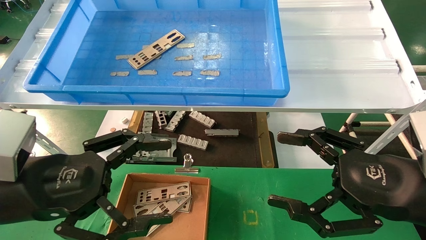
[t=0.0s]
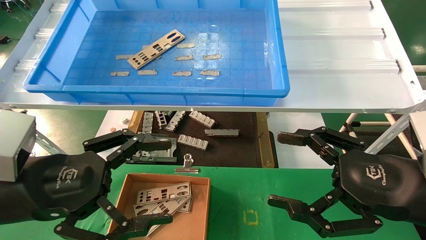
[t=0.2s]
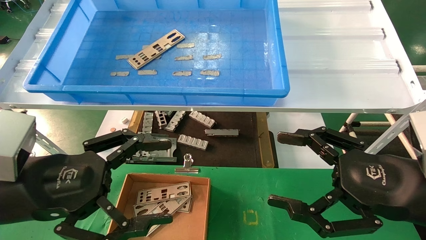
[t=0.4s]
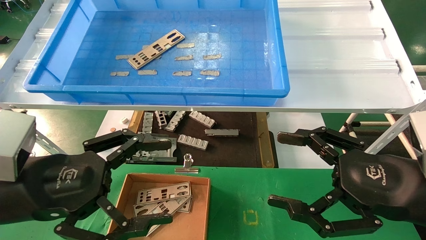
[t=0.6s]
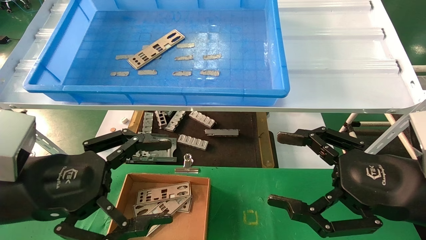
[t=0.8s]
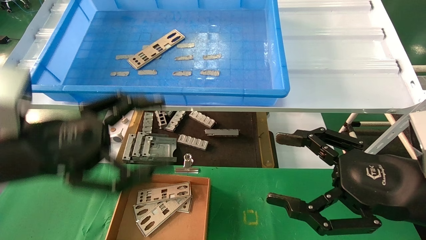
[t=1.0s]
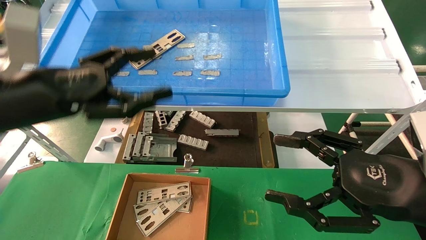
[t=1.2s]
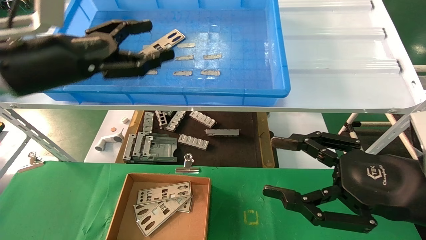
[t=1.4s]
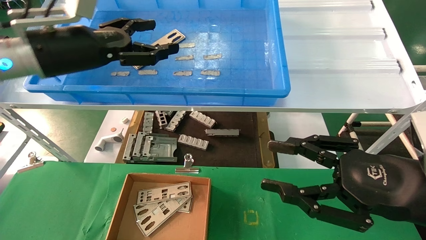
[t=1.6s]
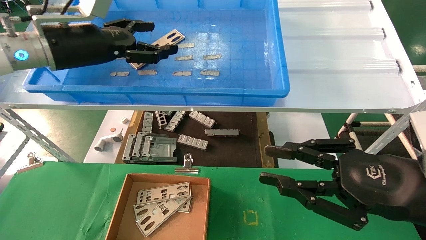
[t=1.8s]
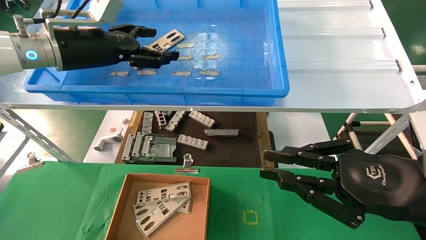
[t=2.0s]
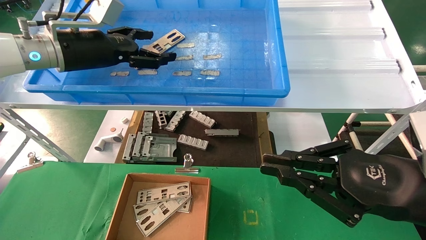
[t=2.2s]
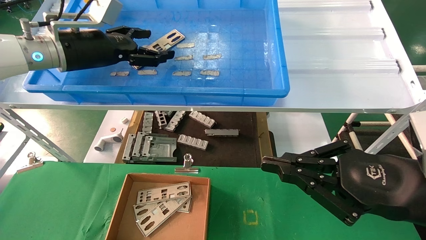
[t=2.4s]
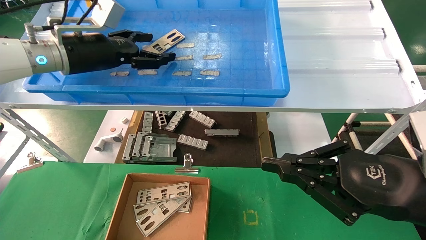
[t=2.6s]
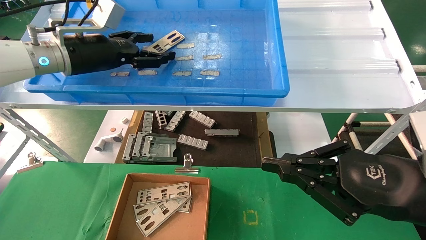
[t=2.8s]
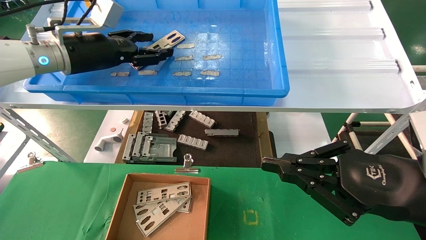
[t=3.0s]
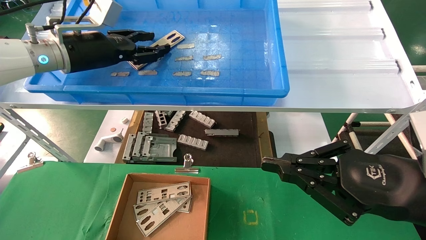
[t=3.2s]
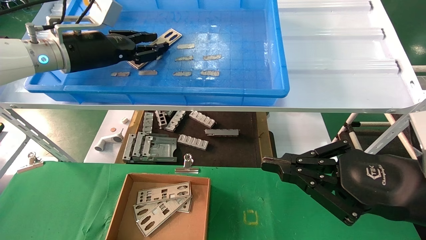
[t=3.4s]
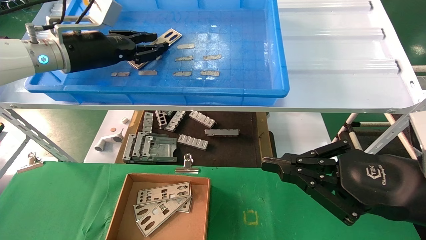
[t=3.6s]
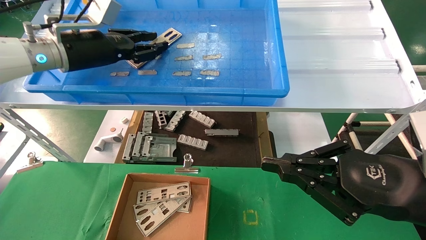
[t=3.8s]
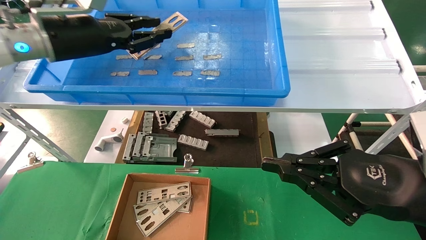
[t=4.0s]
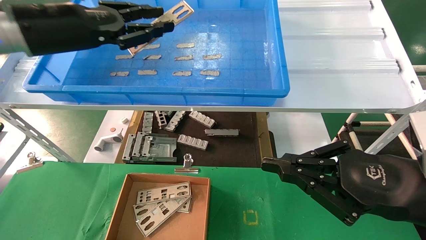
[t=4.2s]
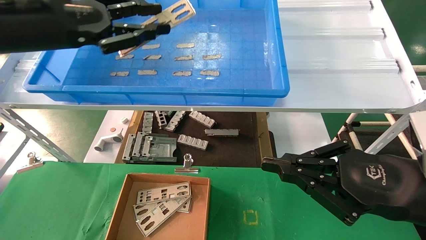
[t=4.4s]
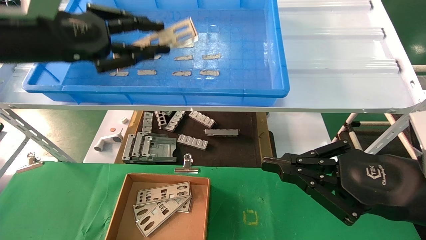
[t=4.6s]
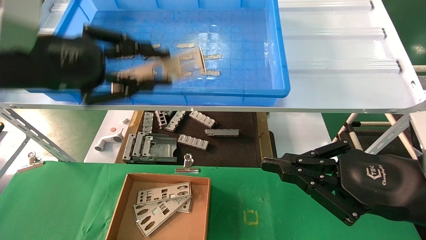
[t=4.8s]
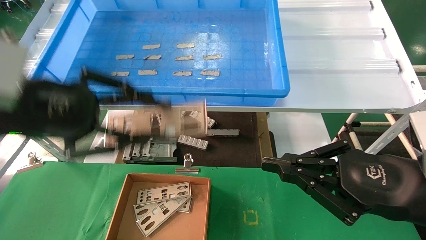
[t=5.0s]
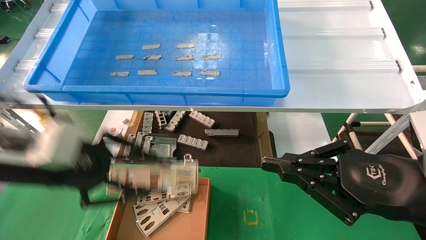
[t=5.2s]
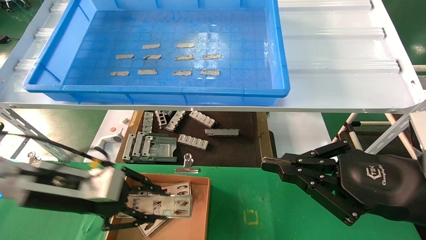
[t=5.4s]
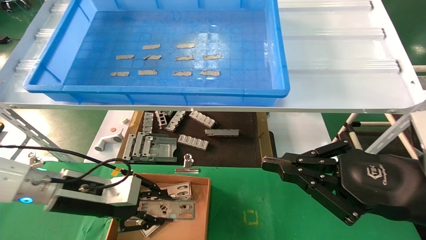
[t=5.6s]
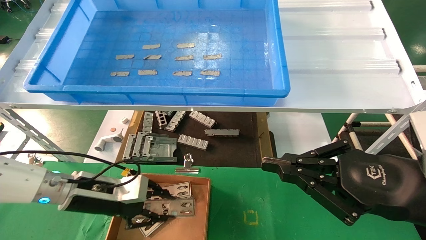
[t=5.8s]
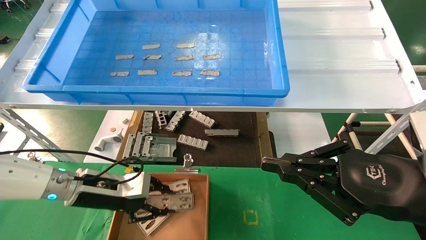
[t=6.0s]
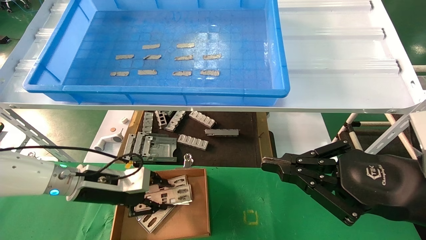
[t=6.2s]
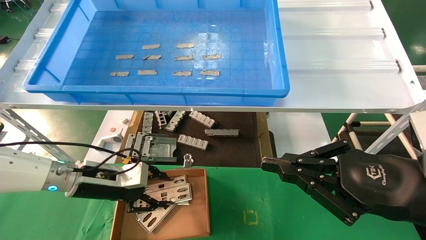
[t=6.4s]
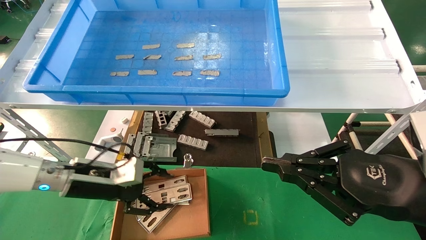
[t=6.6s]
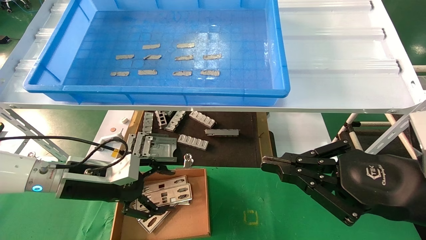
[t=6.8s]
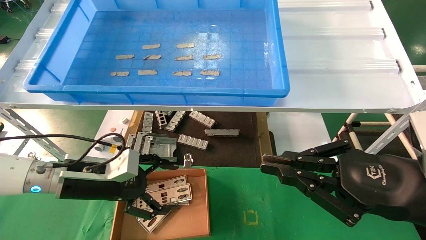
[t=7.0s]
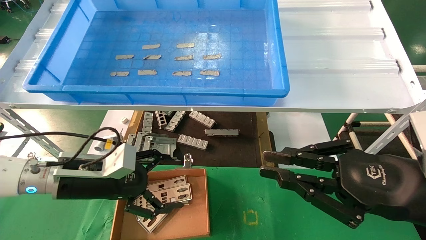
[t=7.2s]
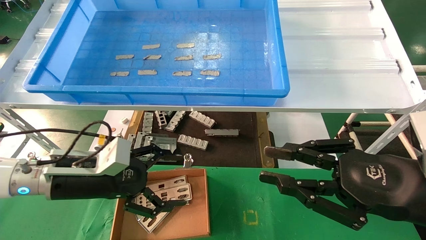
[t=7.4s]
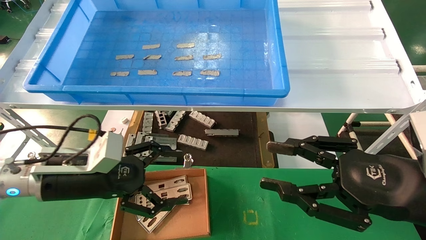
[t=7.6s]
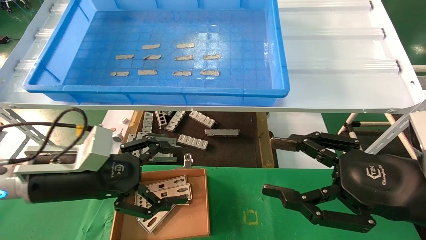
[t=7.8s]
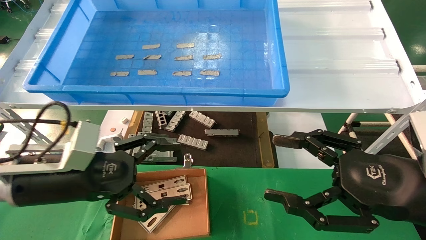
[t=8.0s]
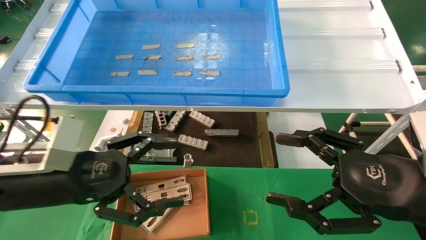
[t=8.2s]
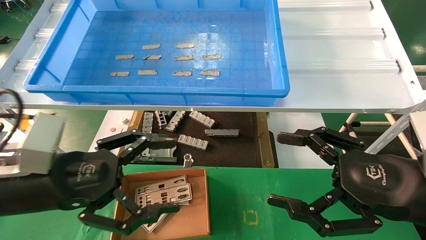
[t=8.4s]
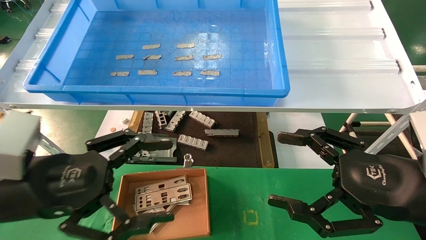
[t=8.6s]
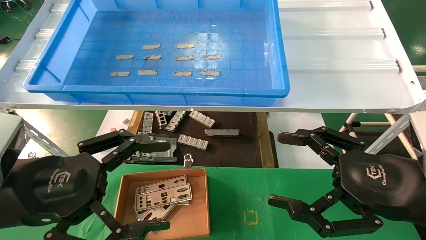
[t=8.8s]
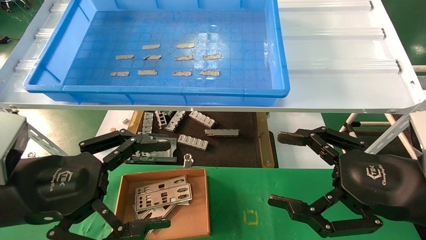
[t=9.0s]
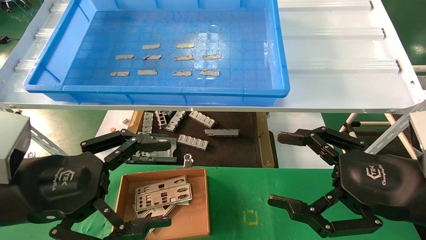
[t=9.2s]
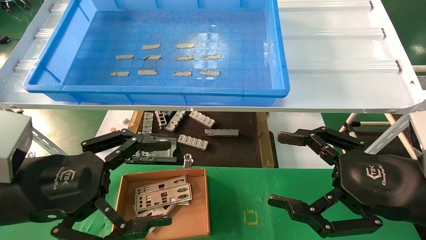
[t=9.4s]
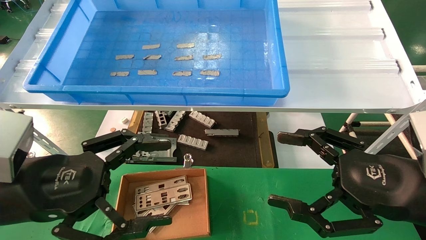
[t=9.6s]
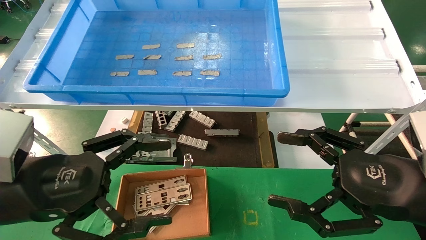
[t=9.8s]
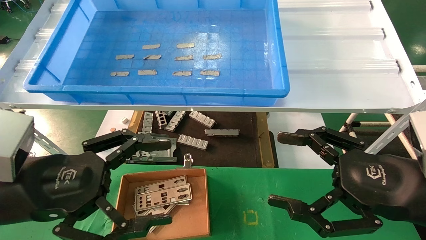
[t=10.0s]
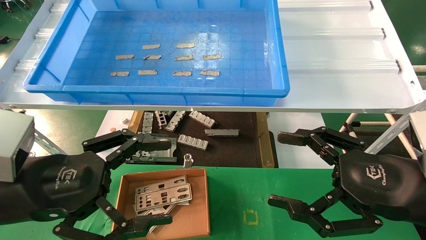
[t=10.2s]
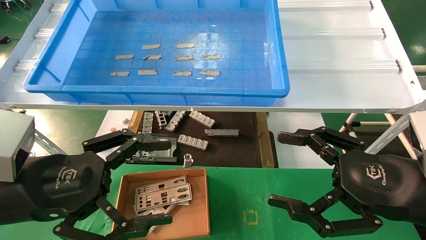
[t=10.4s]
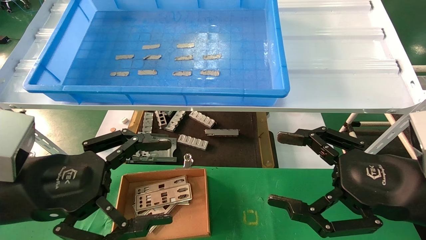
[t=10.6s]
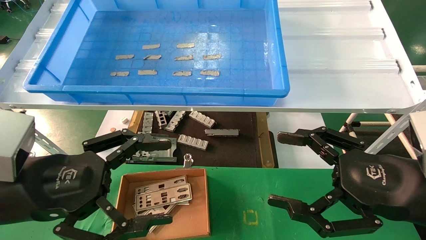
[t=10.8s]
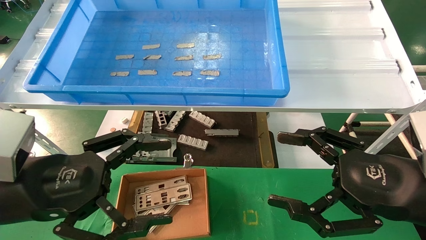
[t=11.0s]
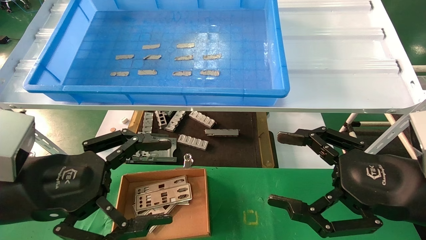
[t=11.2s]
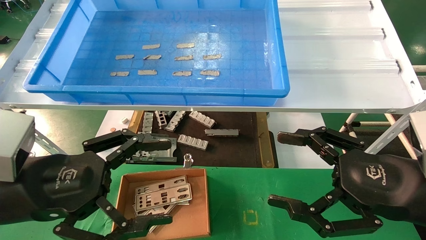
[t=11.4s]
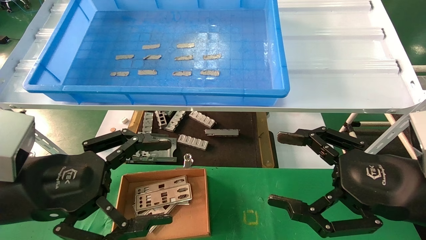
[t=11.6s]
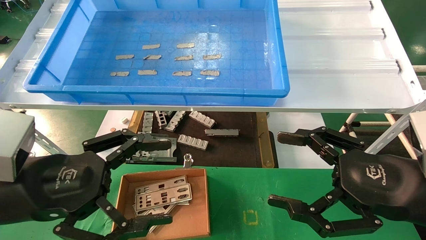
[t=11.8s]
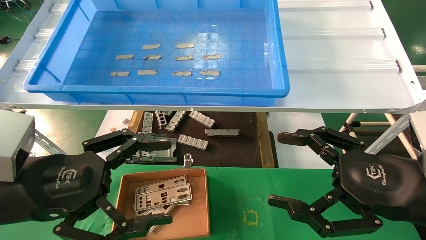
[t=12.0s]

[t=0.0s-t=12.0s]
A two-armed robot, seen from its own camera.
Task of the whole recording: pick up the parts on the tray and put them in the cardboard box.
Step, t=1.2s to t=3.6s: Pick up the IO bracket from the container box.
Step, t=3.8s to t=6.2s: Place the IO bracket into the ingredient slot.
t=0.0s to t=1.6s: The right gripper closes up. Meanwhile the left gripper travels forward and upward by approximately 20 cm.
t=1.6s to t=3.0s: The left gripper goes approximately 5 cm forward; the right gripper closes its fingers.
t=3.0s to t=4.4s: The left gripper goes approximately 10 cm backward, and closes up.
t=4.4s to t=6.0s: The left gripper moves downward, some 30 cm.
t=6.0s to t=7.6s: The left gripper is displaced backward and upward by approximately 10 cm, and opens. Meanwhile the right gripper opens.
t=7.6s to t=9.0s: The left gripper heads backward and upward, covering roughly 10 cm. Meanwhile the right gripper opens up.
t=9.0s to t=12.0s: The two grippers keep their place.

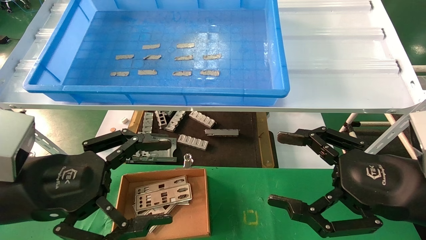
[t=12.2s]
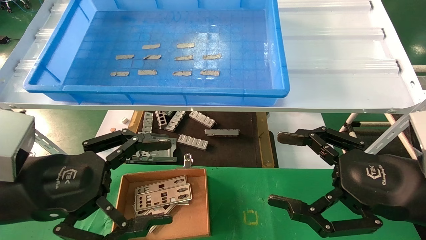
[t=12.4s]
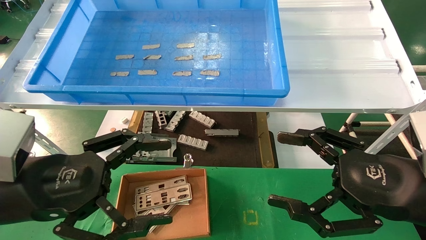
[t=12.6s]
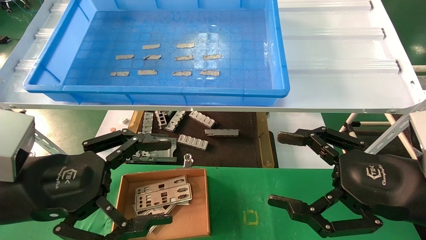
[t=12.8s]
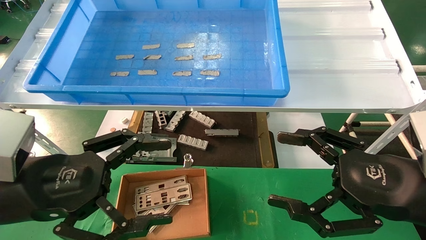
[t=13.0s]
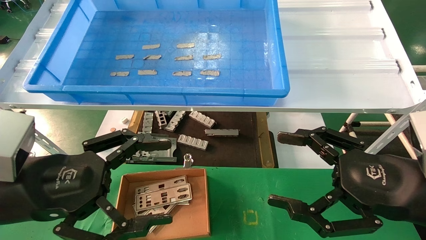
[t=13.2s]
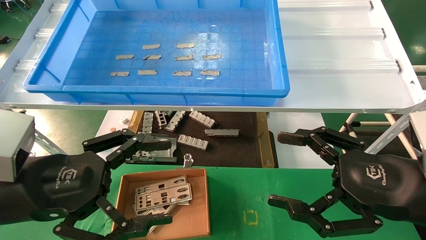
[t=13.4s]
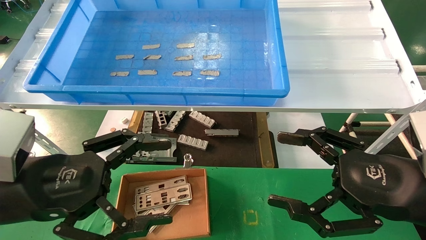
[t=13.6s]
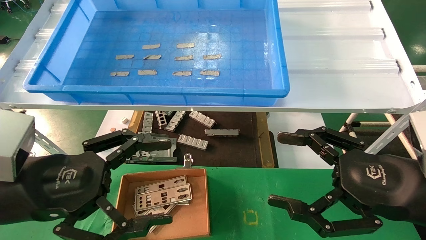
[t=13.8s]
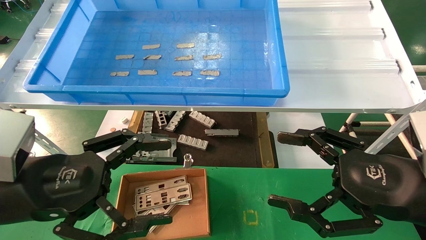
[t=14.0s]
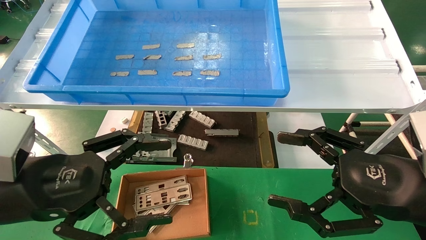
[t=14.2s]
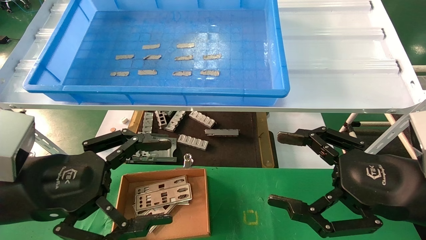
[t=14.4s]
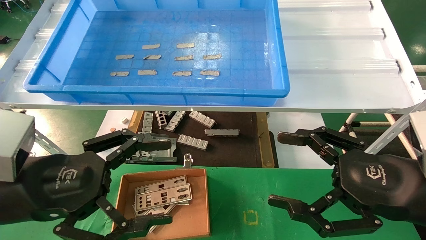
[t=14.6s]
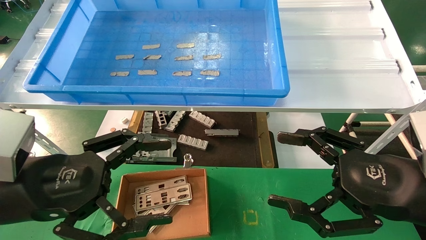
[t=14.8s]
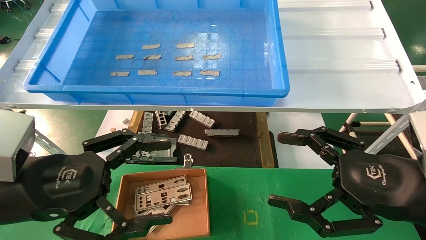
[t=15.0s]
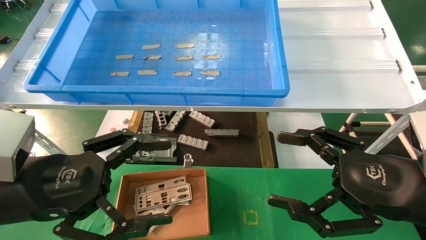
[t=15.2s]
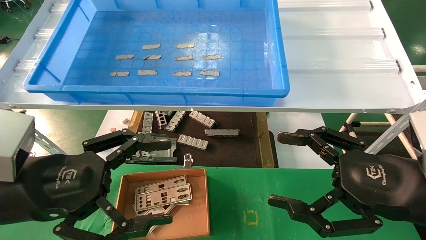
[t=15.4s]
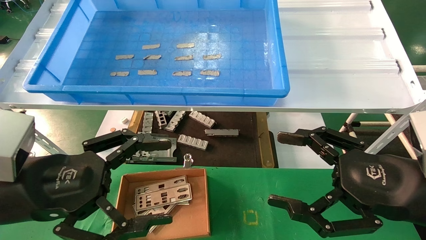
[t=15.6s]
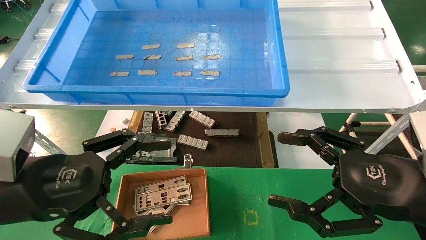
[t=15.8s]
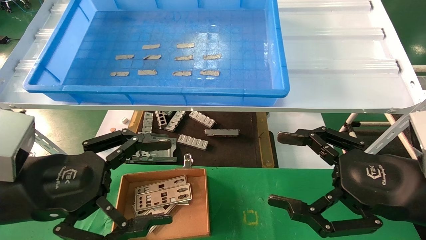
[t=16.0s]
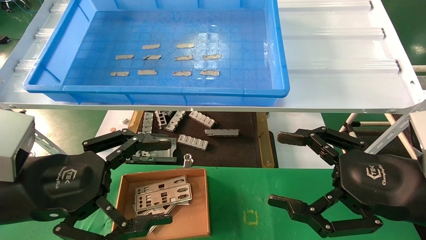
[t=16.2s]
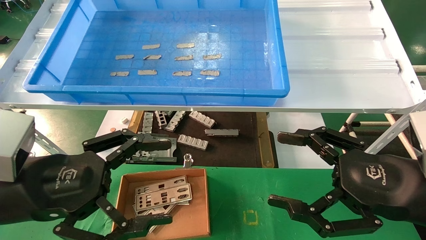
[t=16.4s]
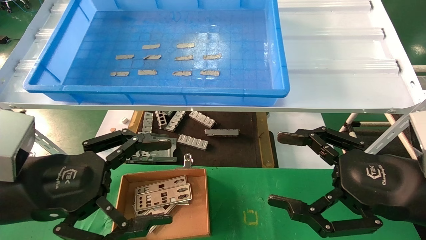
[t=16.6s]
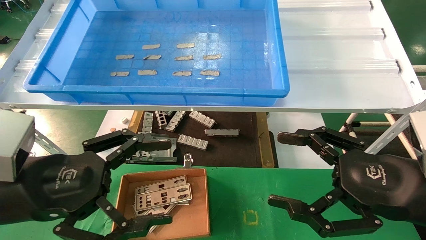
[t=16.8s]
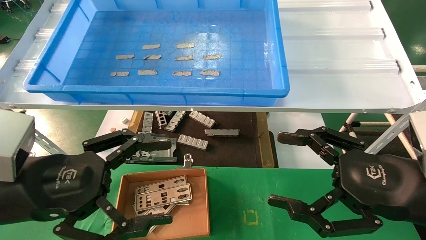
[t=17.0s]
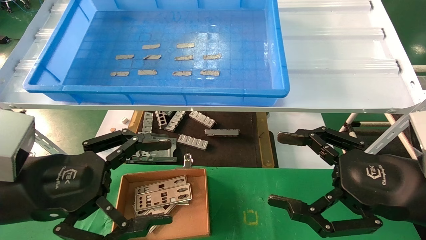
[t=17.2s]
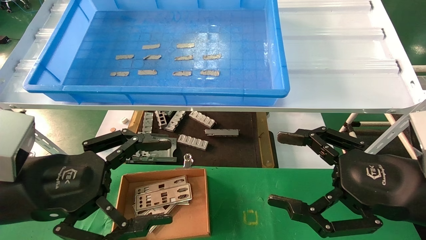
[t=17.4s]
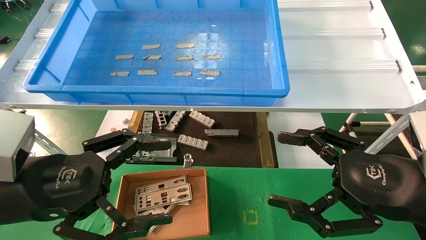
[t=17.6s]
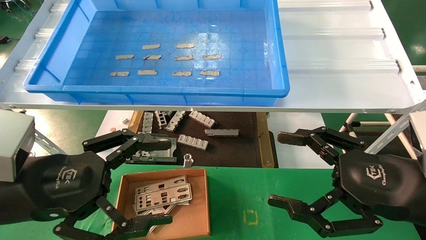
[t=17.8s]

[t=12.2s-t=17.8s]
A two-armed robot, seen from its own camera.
Task of the whole recording: pick up the parts on the tray and put them in the cardboard box.
t=12.2s to t=17.8s: Neither gripper changes place.
